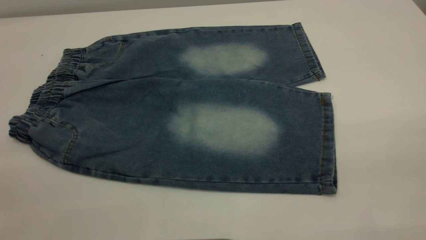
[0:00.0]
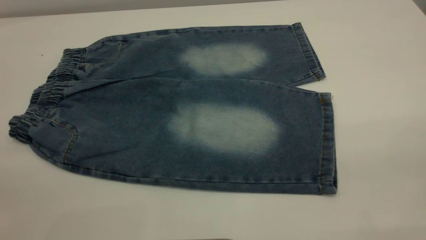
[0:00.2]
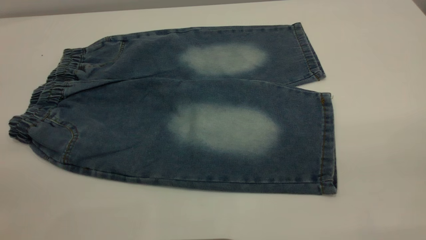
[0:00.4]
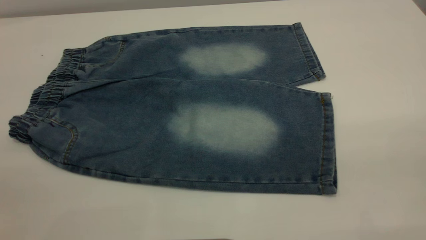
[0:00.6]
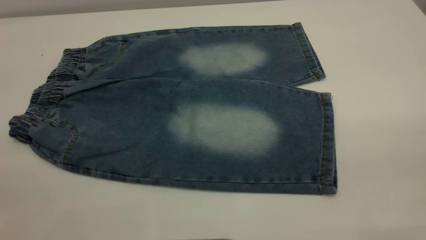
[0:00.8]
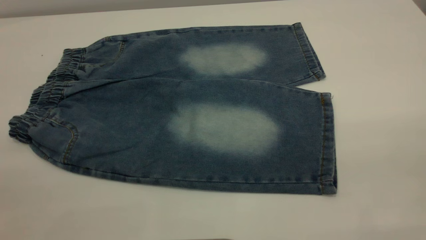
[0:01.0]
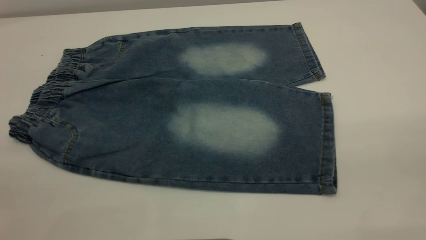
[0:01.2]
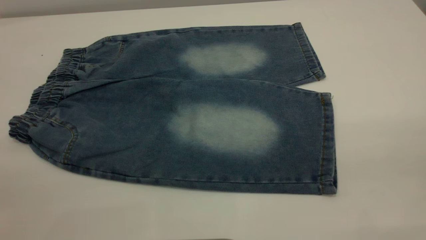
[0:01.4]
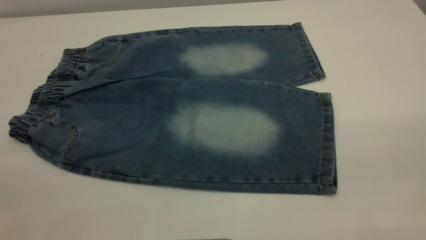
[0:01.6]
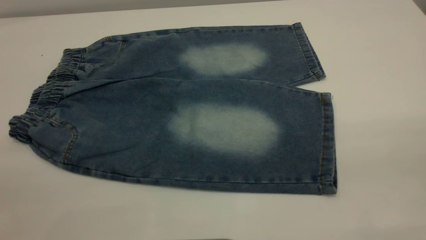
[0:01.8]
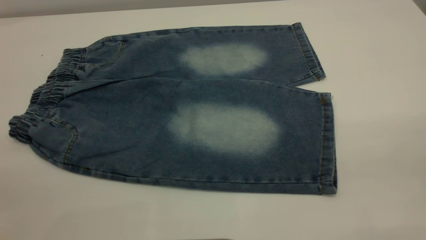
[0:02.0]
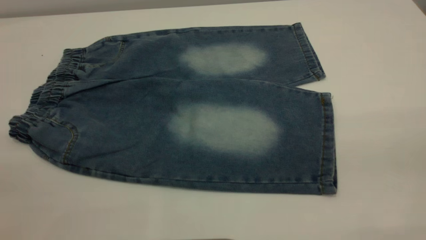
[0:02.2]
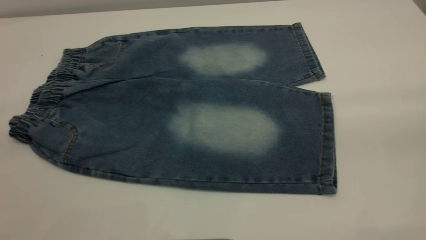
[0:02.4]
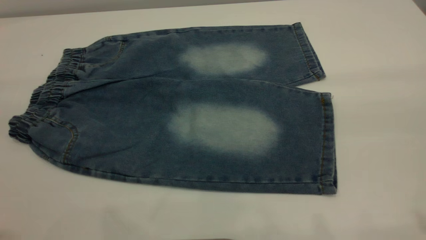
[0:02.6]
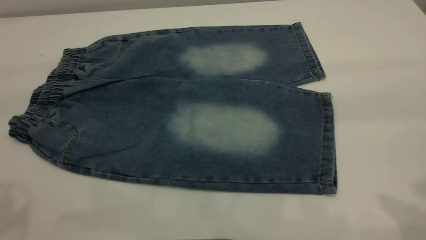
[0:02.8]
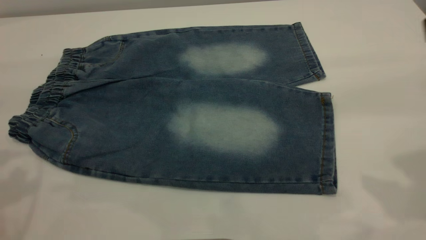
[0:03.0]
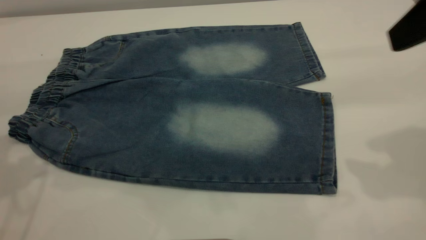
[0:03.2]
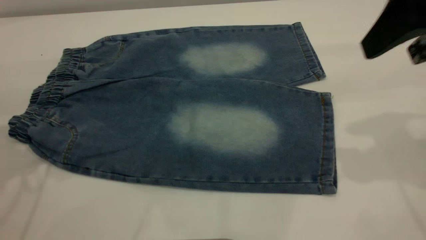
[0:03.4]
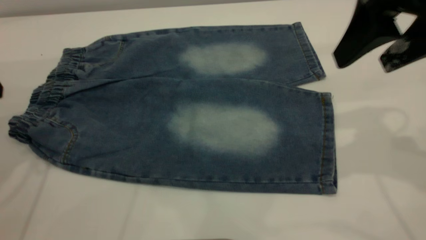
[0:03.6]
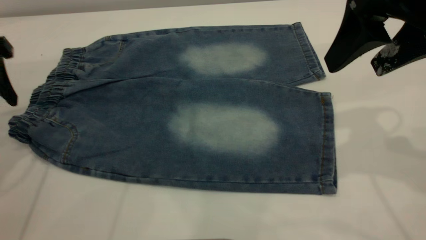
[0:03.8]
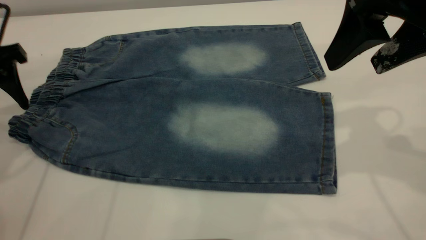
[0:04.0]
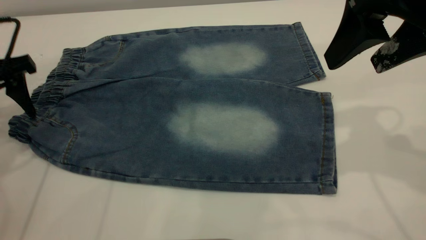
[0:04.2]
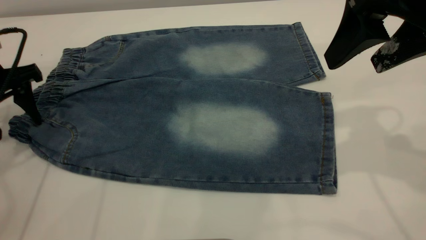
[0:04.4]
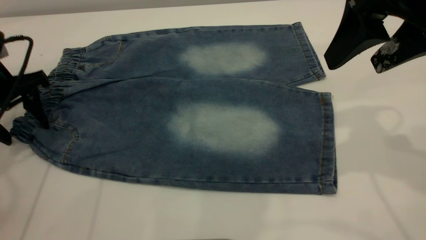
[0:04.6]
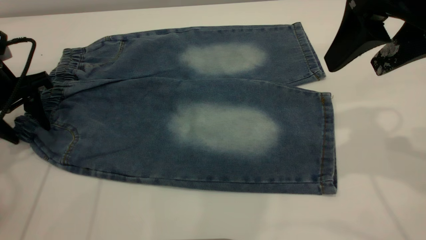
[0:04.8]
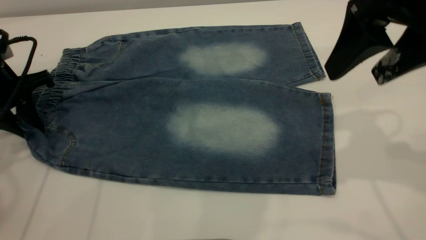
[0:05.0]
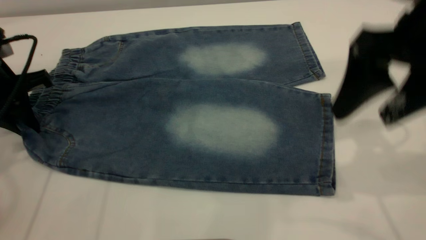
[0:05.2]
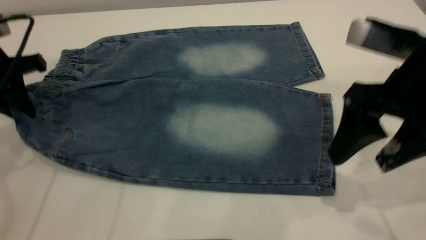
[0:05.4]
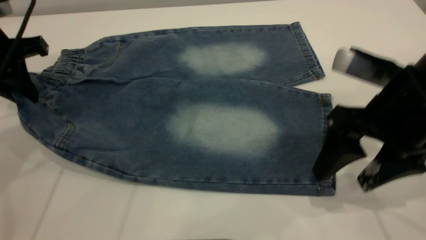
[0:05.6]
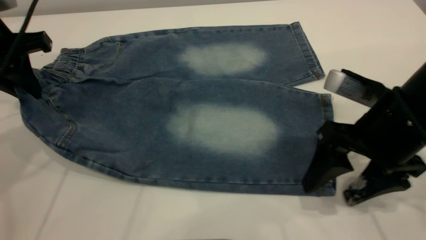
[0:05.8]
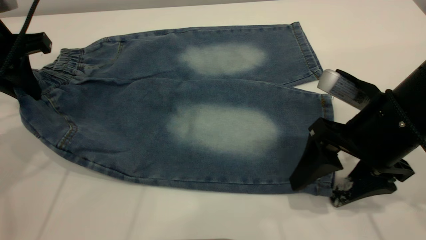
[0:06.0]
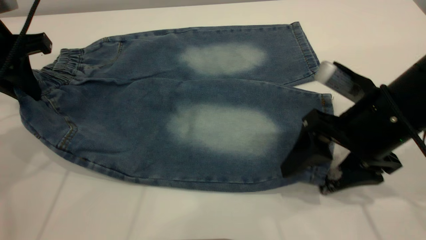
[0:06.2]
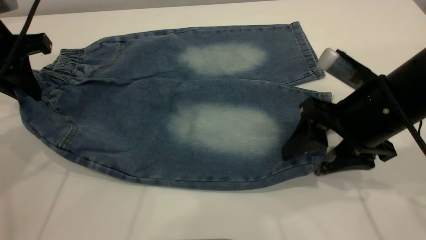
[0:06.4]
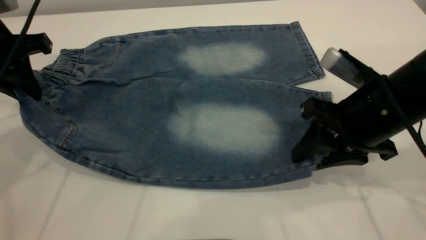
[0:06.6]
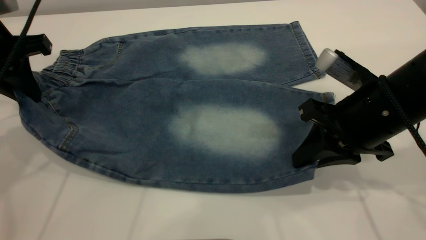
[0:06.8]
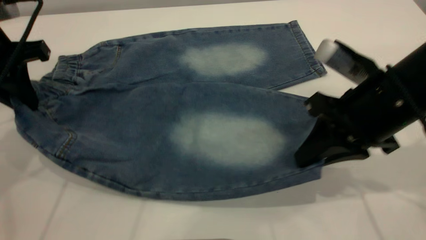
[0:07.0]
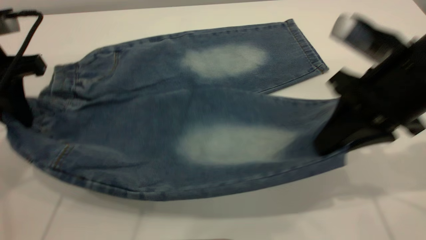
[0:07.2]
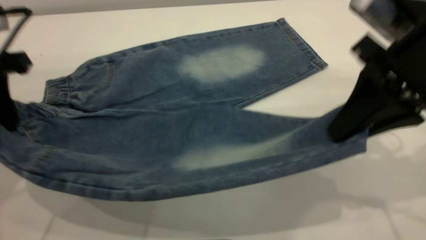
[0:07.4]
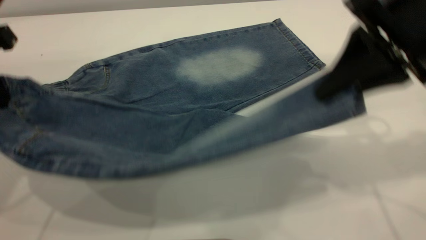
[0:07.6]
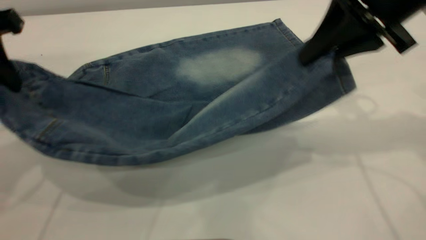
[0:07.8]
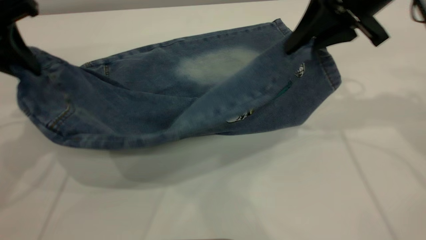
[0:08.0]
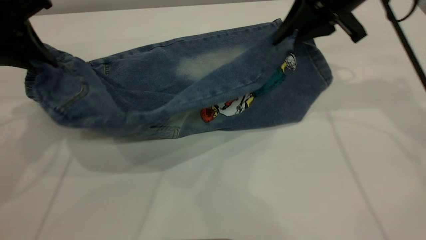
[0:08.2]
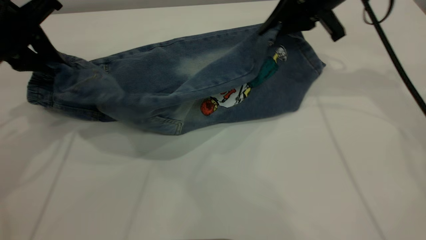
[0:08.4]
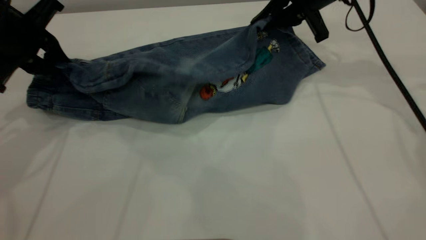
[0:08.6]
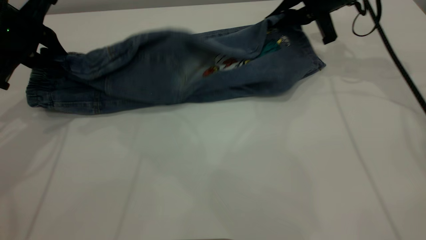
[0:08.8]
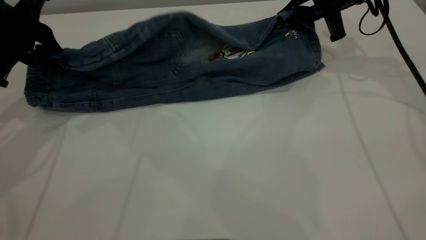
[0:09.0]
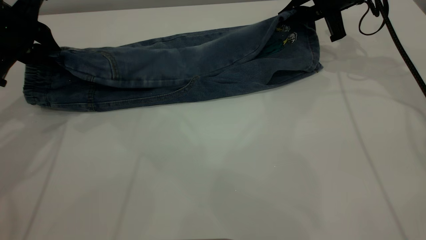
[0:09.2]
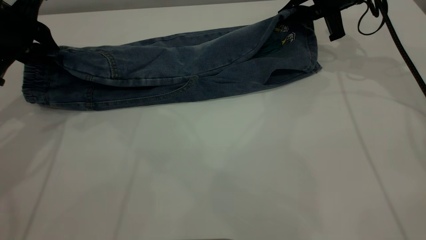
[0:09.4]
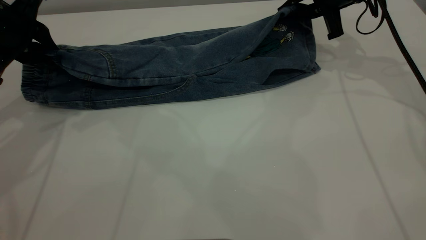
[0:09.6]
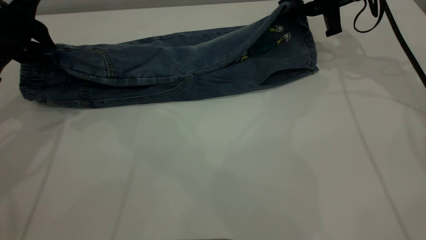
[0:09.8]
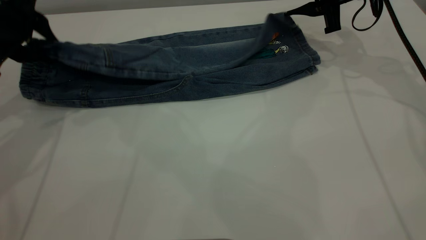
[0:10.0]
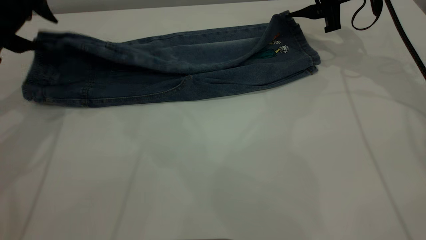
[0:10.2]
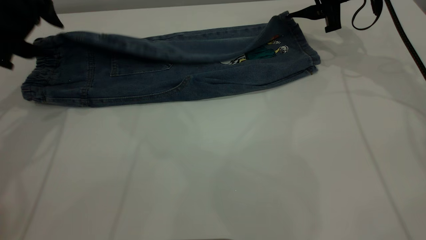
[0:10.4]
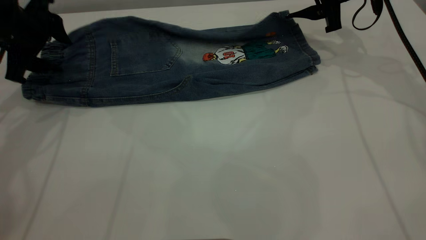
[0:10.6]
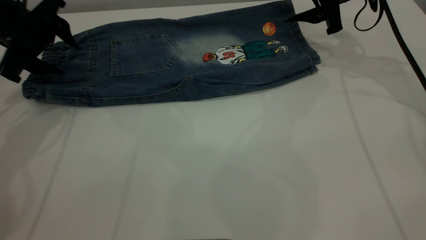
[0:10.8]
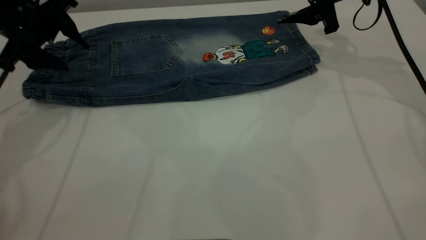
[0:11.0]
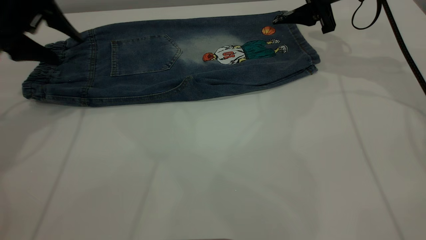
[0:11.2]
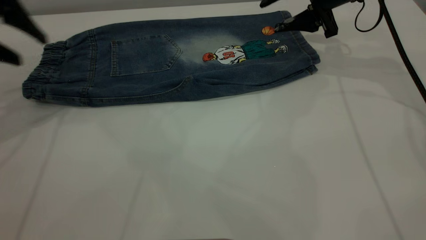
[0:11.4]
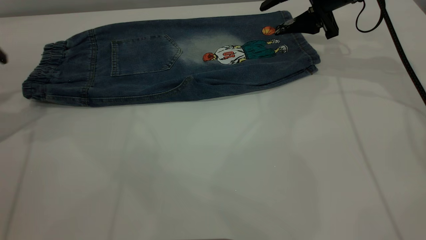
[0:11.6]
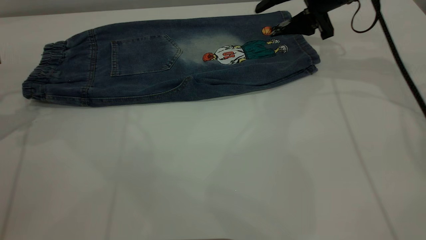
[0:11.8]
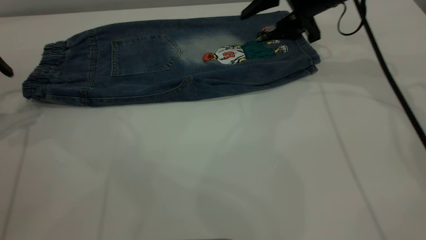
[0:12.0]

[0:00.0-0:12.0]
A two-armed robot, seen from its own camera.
Step, 0:00.0 to 0:11.4: Fold the bottom of the pants upward.
0:00.0 to 0:01.6: Neither gripper changes place.
0:03.0 to 0:04.4: The right gripper goes about 10 cm forward and to the left. Meanwhile the left gripper heads downward and forward, covering approximately 20 cm.
0:04.4 to 0:06.0: The left gripper moves upward, about 5 cm, and closes; the right gripper goes approximately 15 cm downward.
0:06.0 to 0:07.6: The right gripper shifts about 15 cm upward, and closes up. The left gripper moves roughly 5 cm.
0:07.6 to 0:09.0: The left gripper goes approximately 10 cm forward and downward, while the right gripper travels forward and downward by about 20 cm.
0:09.0 to 0:10.4: The left gripper opens up; the right gripper opens its fingers.
0:10.4 to 0:12.0: The right gripper heads to the left, covering about 5 cm; the left gripper travels to the left by about 10 cm.

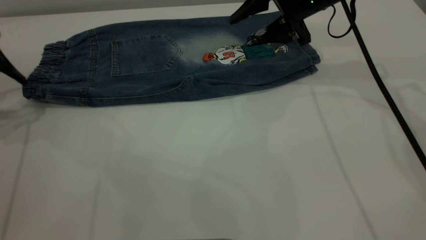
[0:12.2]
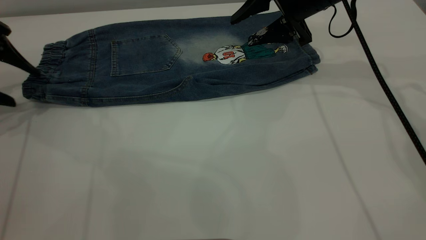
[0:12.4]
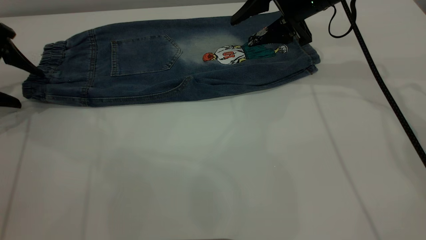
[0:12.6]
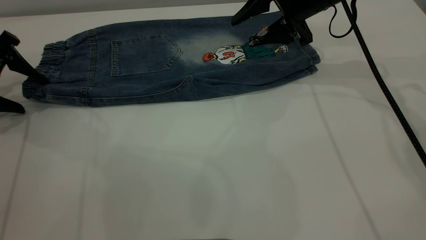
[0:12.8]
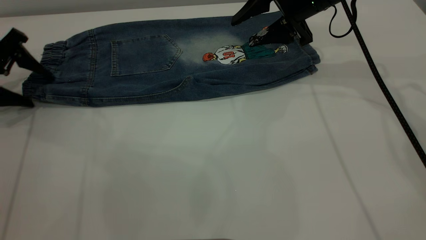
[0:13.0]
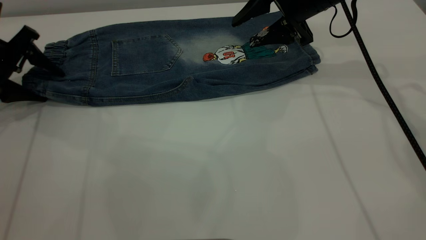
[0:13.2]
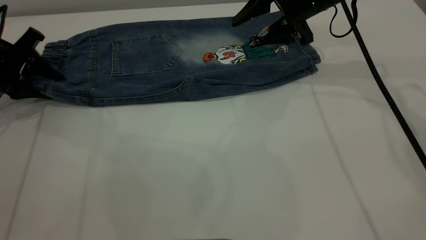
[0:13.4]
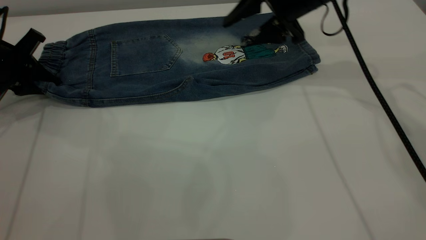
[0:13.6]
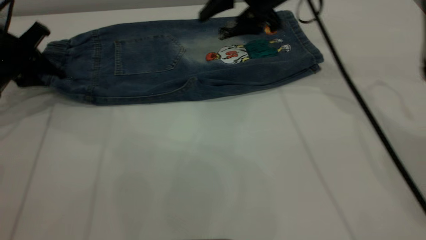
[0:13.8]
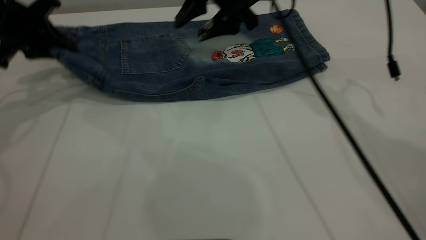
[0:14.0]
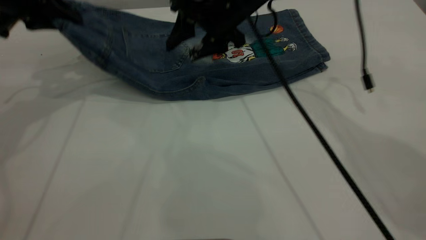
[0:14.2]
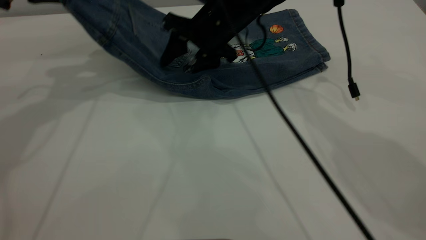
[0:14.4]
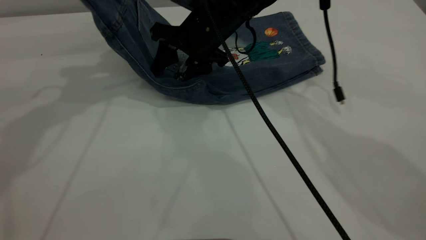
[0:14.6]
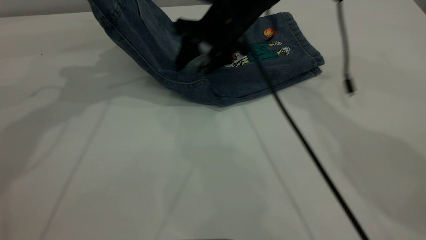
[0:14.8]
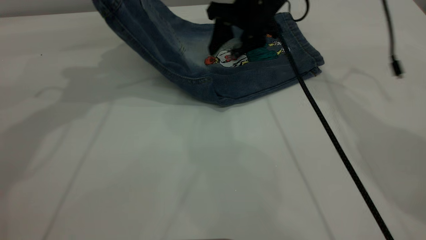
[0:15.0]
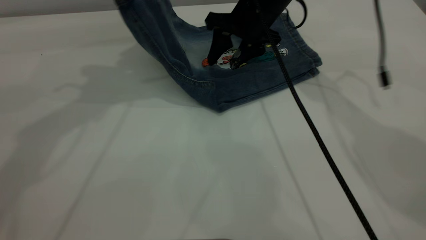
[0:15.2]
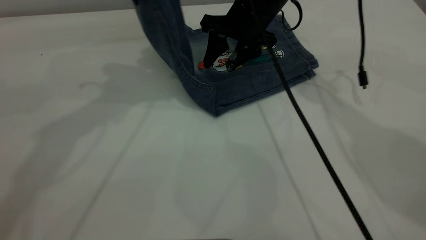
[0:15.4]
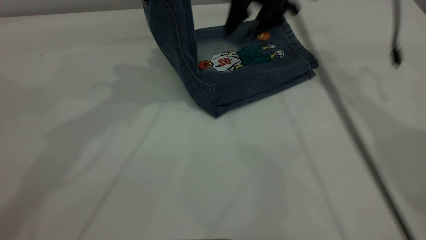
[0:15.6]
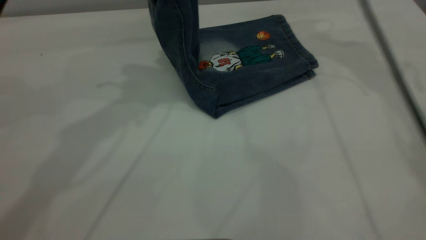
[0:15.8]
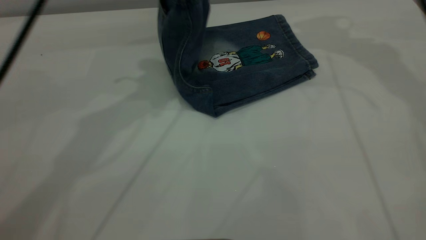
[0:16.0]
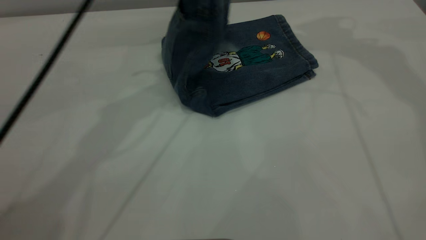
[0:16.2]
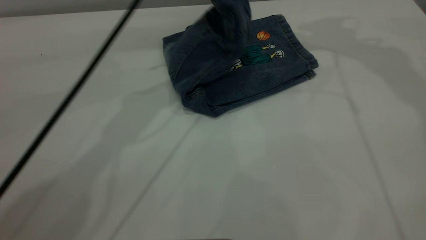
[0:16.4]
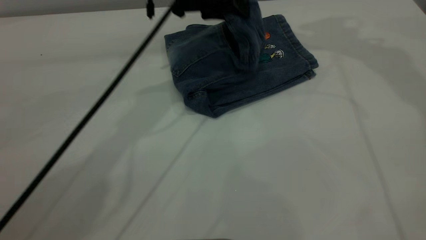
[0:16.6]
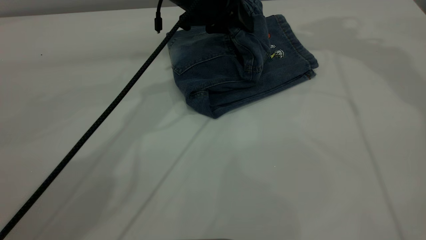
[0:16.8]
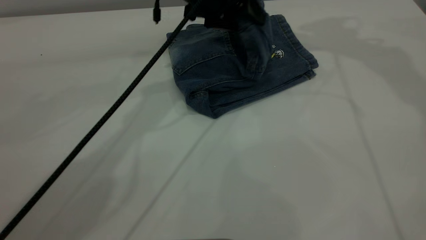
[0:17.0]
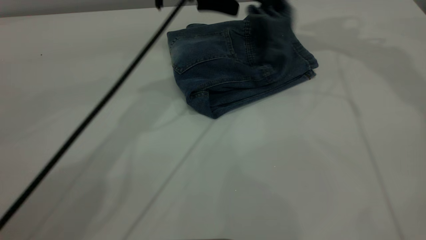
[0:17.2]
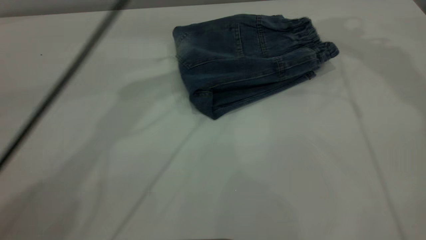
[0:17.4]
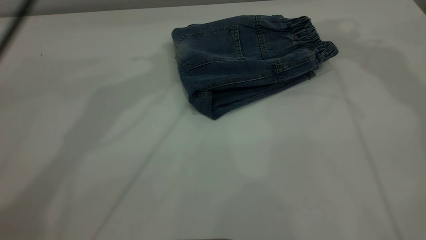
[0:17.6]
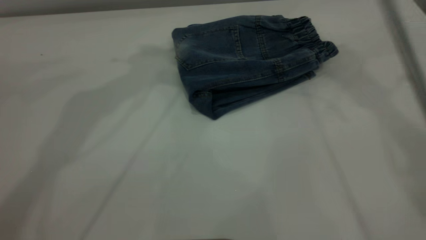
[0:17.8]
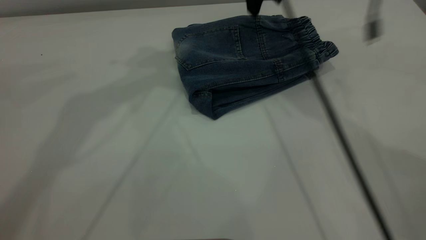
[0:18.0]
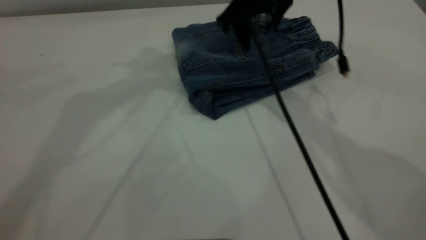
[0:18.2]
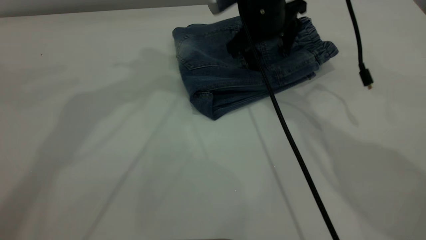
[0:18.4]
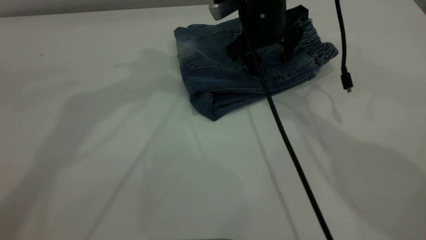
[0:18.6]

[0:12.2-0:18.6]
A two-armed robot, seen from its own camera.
Step, 0:12.2 to 0:17.4: Fold the pants from left to right.
0:12.2 to 0:13.8: The left gripper ends up approximately 5 cm from where it was, and closes. The right gripper moves to the left, approximately 5 cm.
0:13.8 to 0:15.4: The left gripper goes approximately 25 cm upward and to the right. Meanwhile the right gripper reaches approximately 10 cm to the left, then returns.
0:15.4 to 0:17.0: The left gripper shifts about 20 cm to the right, downward and forward, and opens up. Meanwhile the right gripper moves upward and to the right, about 25 cm.
0:17.0 to 0:18.6: The left gripper is displaced upward and to the left by about 25 cm; the right gripper travels downward and to the left by some 25 cm.
